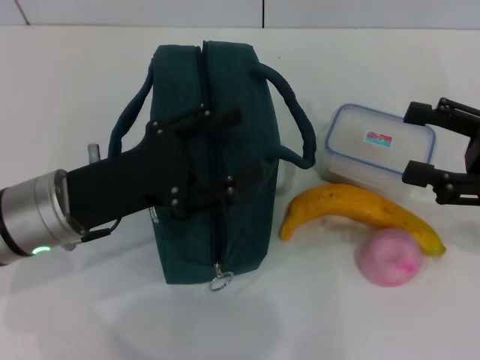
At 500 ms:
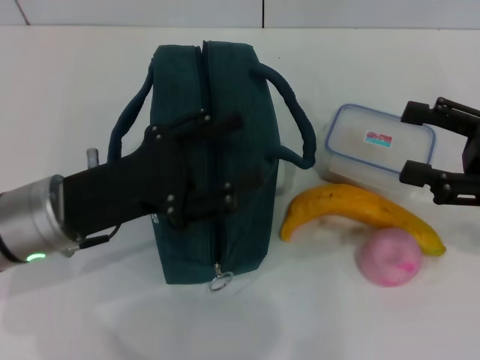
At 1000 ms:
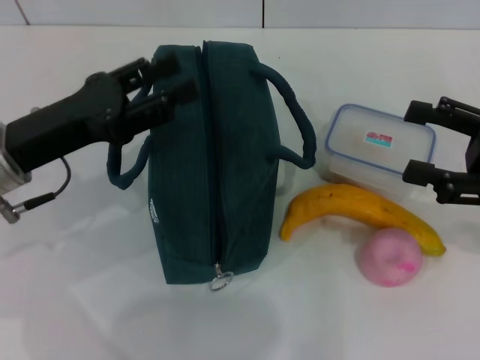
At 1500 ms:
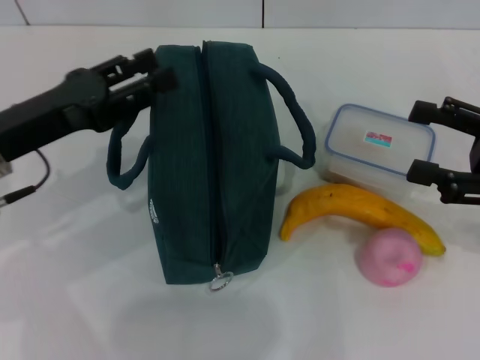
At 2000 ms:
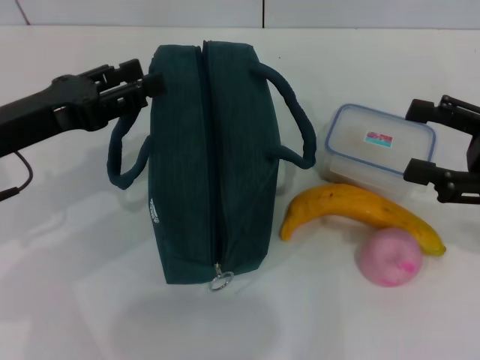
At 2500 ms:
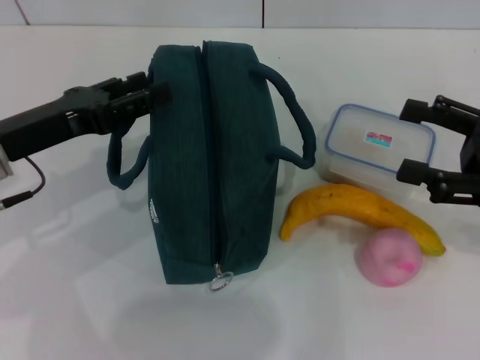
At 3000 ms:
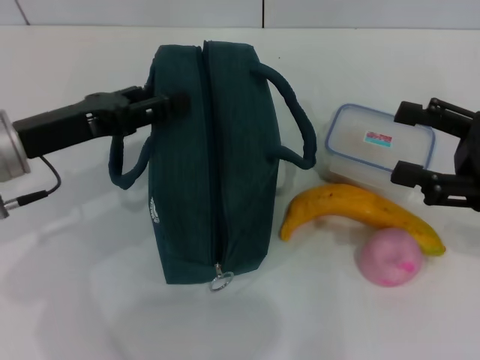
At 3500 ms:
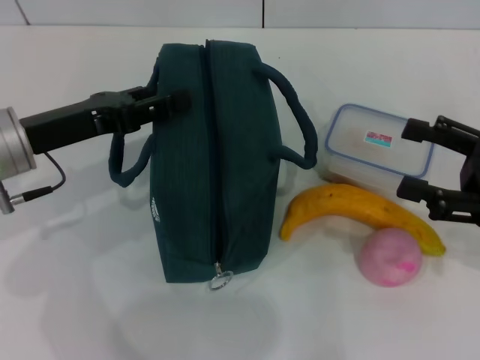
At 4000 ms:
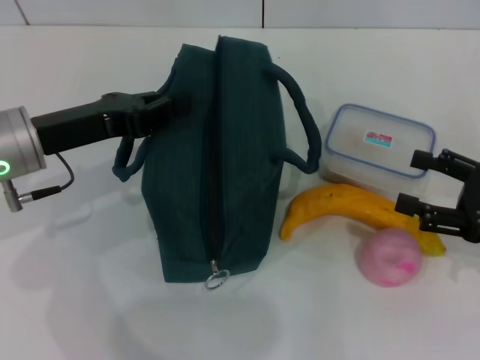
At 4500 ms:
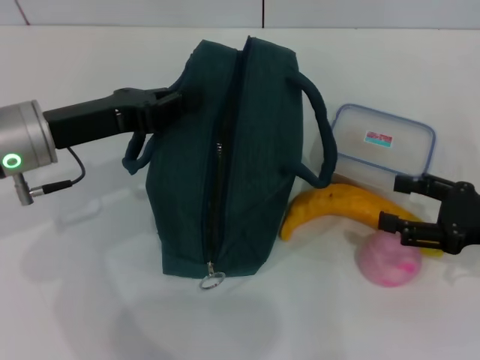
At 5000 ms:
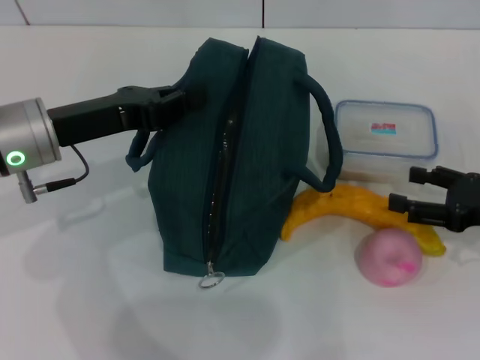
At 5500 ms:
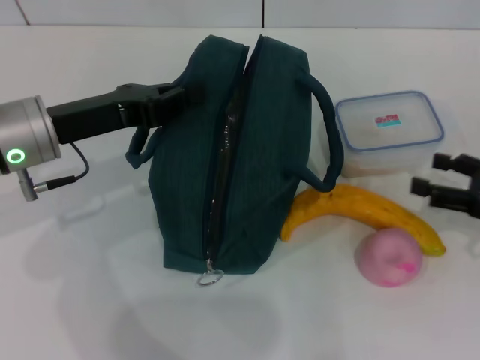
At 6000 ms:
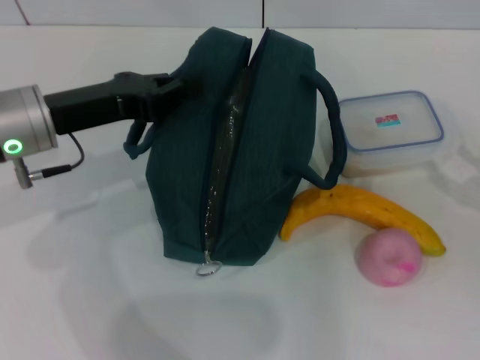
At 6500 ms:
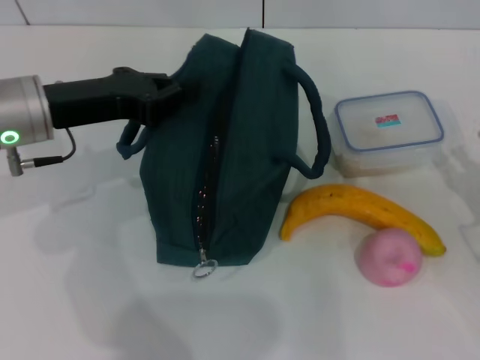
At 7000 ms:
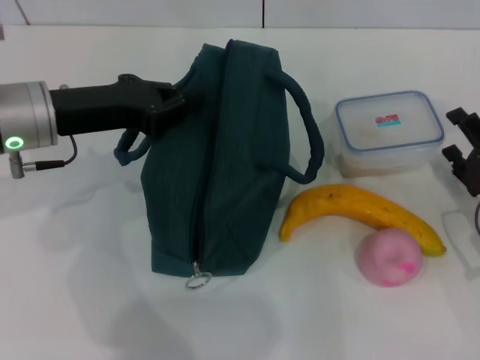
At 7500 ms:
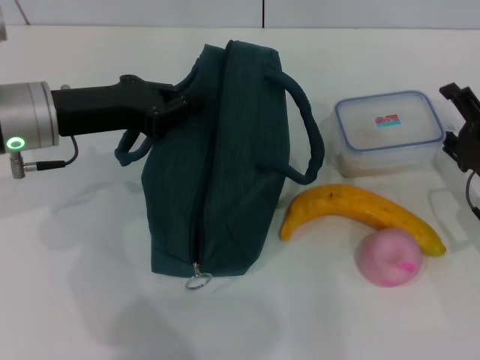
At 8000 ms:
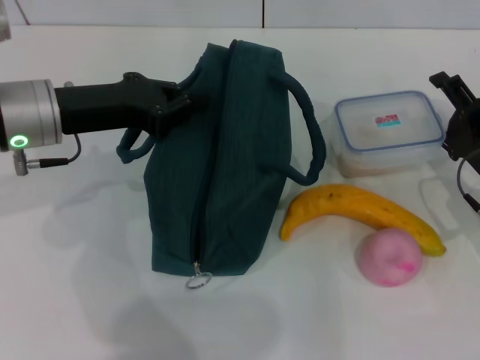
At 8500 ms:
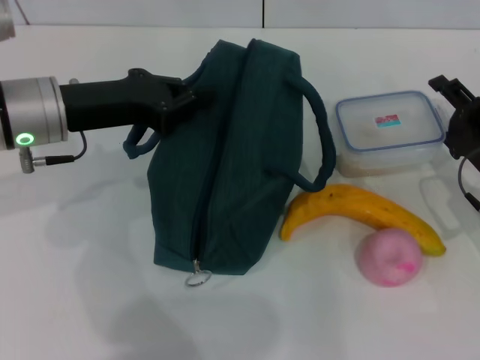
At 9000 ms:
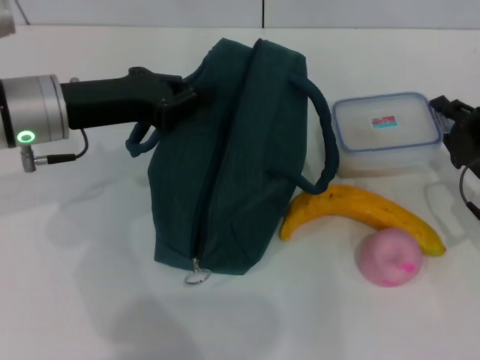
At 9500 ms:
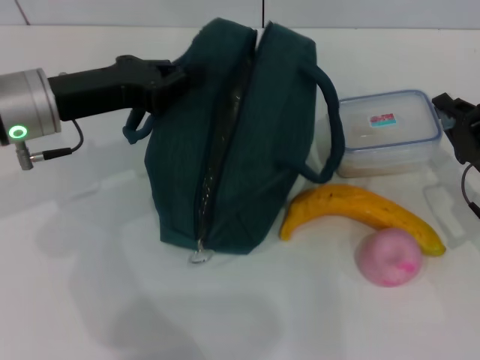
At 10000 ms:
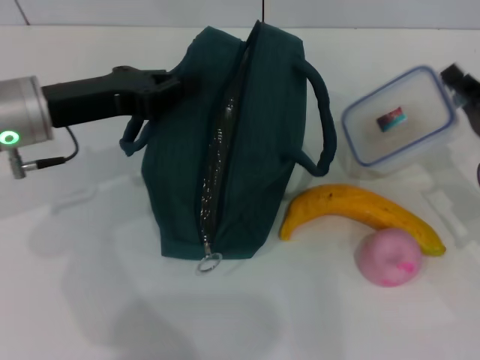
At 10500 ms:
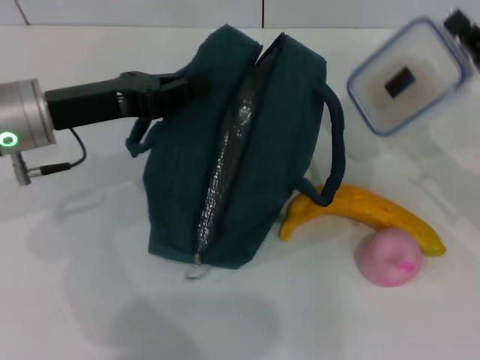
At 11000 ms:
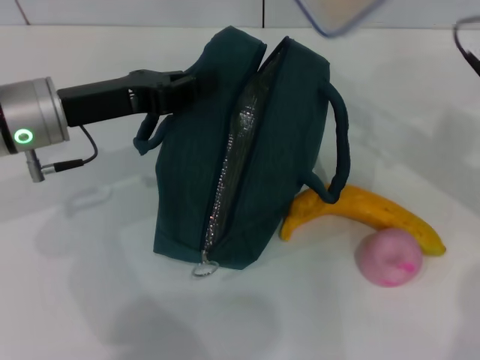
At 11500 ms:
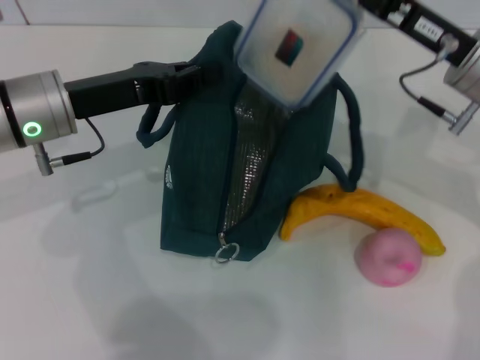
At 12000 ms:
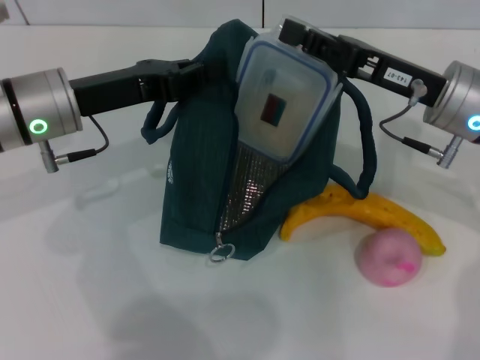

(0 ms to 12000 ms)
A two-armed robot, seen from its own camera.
Step, 0 ms - 4500 ms: Hold the lunch bag with your left hand.
Step, 5000 ms - 9500 ms: Pick up the lunch box with your right hand.
0 ms - 2000 ms: The left gripper is displaced to the left by about 5 cm.
2000 ms - 4000 ms: The left gripper closes. The right gripper is displaced downward by roughly 5 cm.
4000 ms - 6000 ms: The left gripper closes its fingers.
6000 ms - 8000 ms: The right gripper goes some 10 cm to the left and forward.
8000 ms - 10000 ms: The right gripper closes up.
10000 ms - 12000 ms: The right gripper moves to the left, upward and forward, roughly 15 cm.

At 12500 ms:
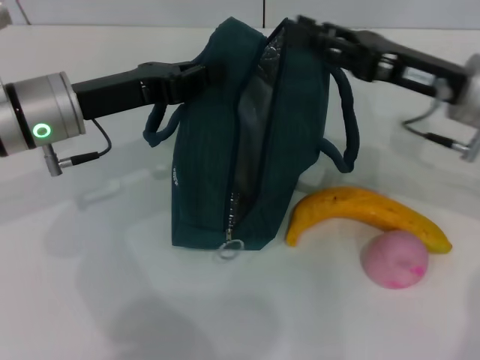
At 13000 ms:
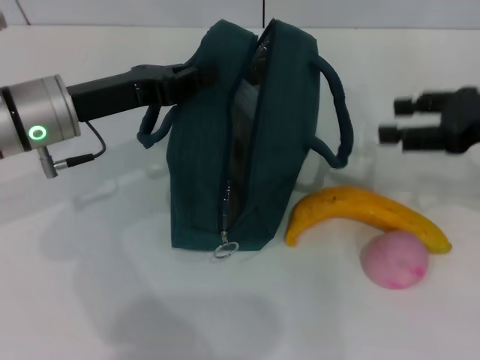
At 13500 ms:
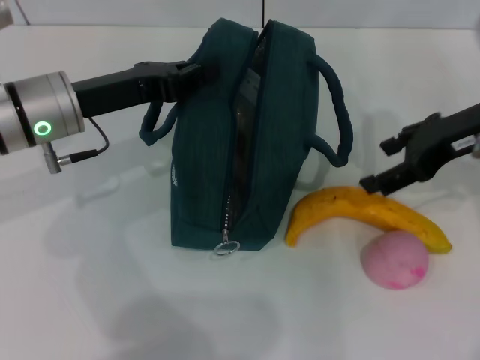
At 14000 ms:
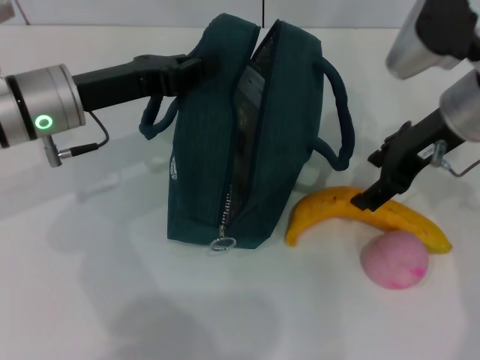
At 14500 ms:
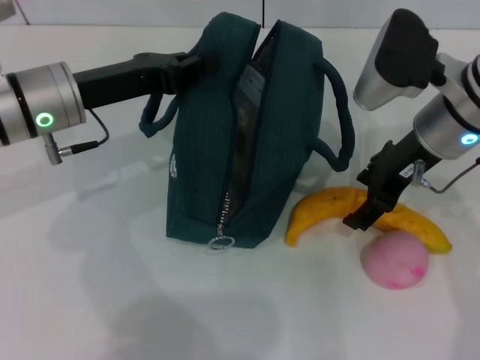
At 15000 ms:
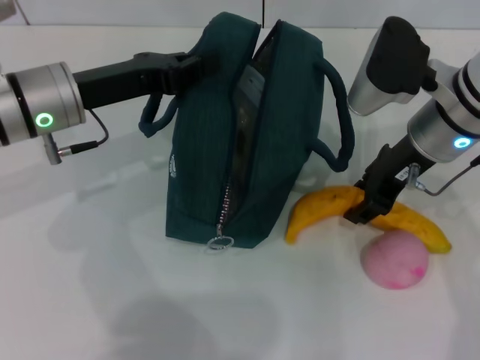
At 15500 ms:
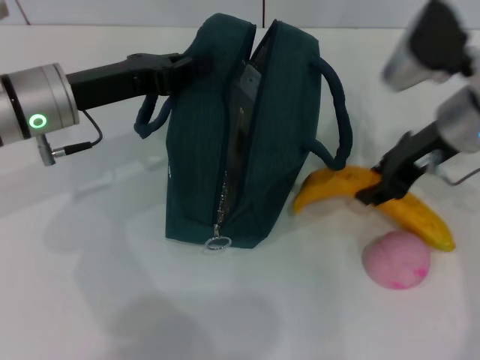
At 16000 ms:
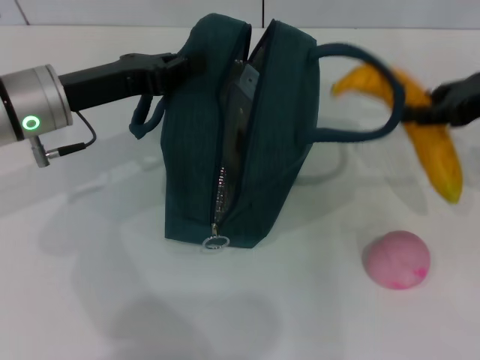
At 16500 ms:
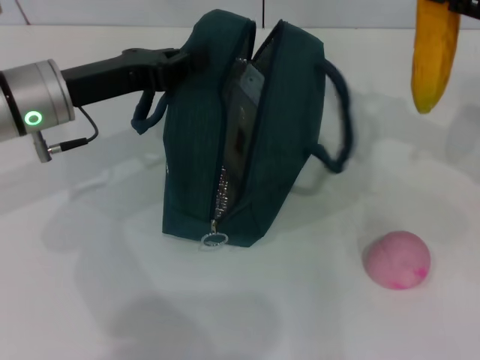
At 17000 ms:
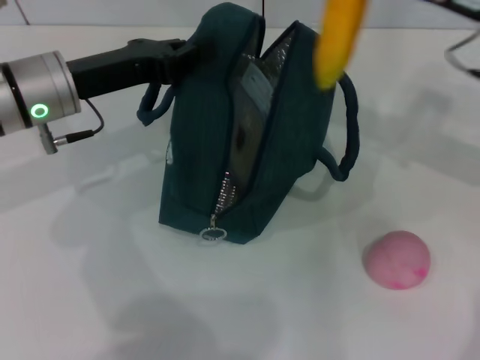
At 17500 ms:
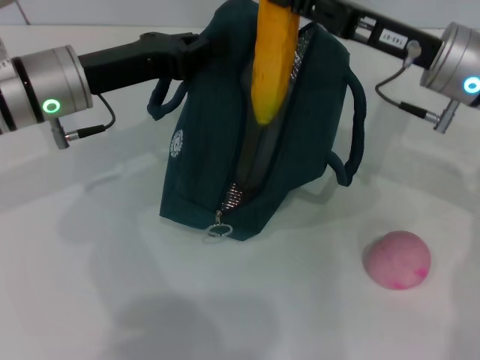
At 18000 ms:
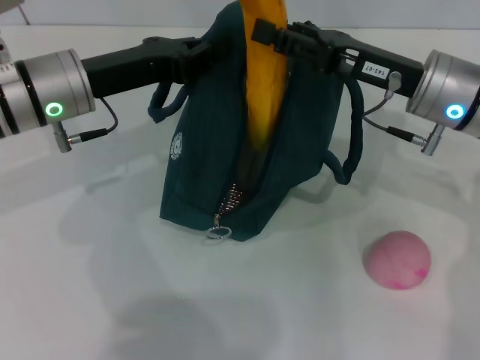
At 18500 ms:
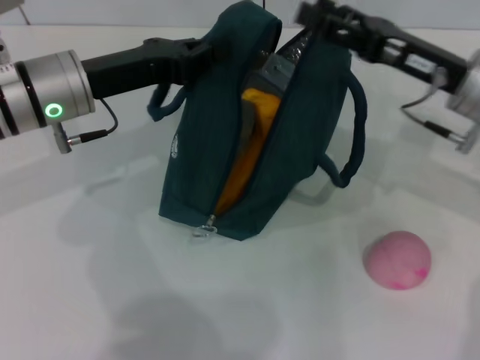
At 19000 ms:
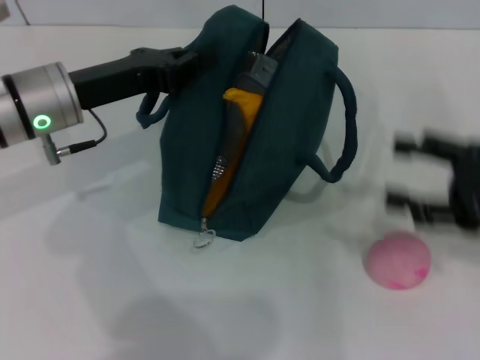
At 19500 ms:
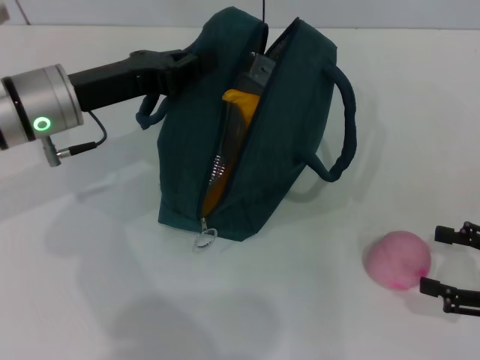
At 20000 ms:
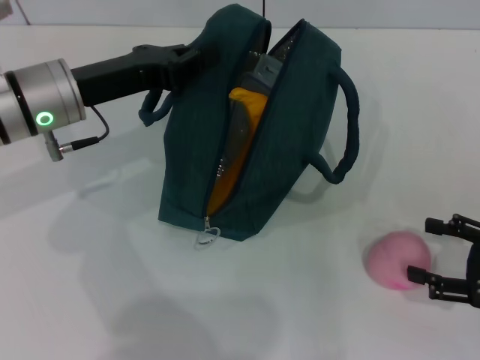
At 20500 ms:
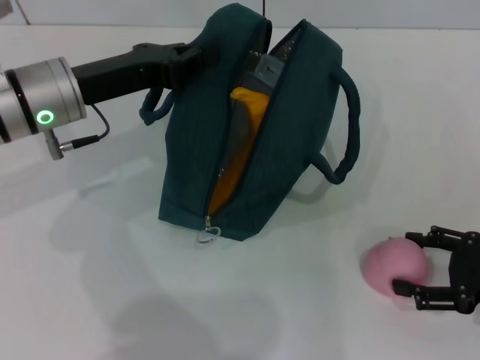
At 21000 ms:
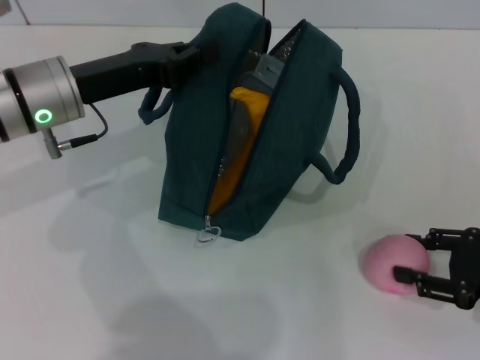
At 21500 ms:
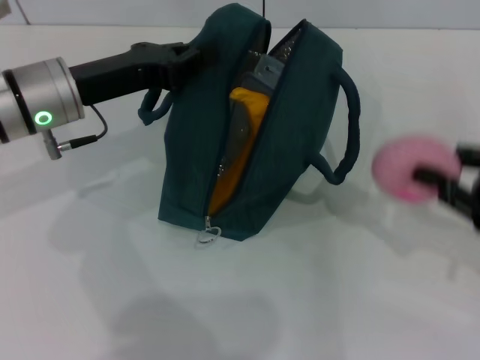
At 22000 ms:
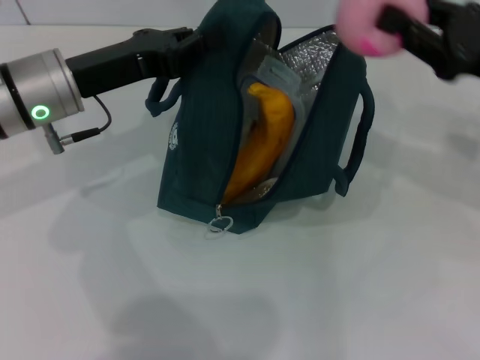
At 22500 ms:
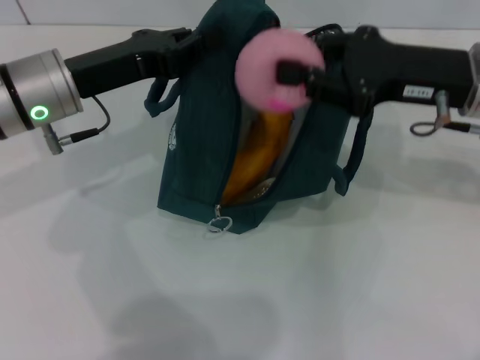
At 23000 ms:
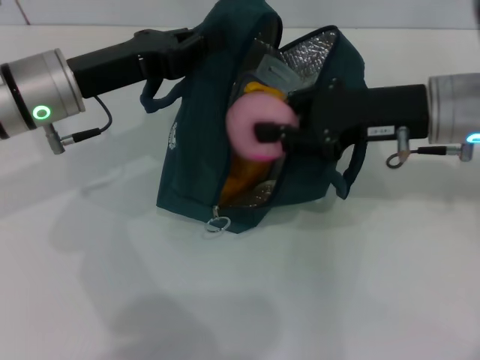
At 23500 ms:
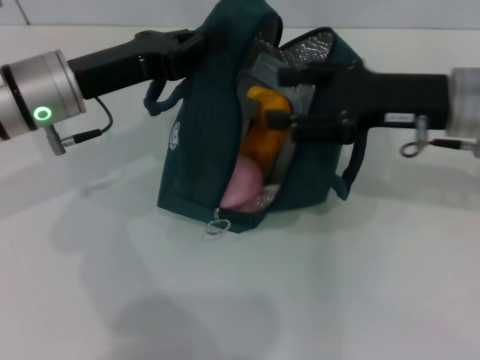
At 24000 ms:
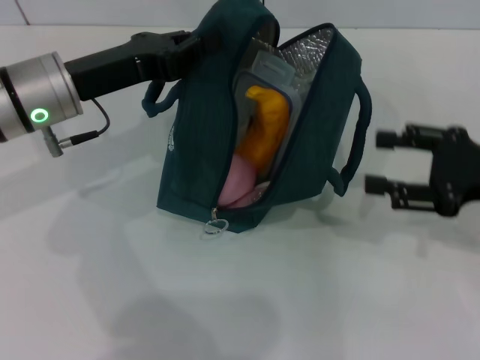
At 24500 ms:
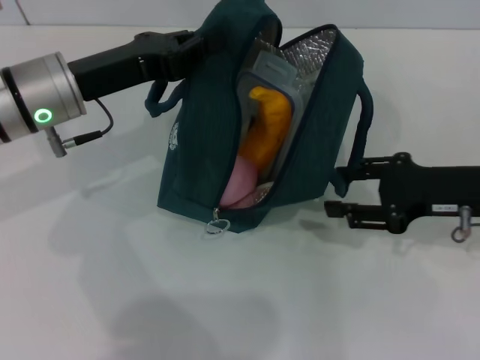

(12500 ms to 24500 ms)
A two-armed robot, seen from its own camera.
Step, 12500 ms - 14500 ms: Take the banana with your right hand.
Step, 15000 ms - 18000 ms: Put the banana into the lunch bag with your right hand.
Step, 18500 ms - 20500 ms: Grab the peach with your right hand.
12500 ms - 14500 ms: The right gripper opens up.
14500 ms - 16500 ms: The right gripper is displaced to the right by about 15 cm, and closes.
16500 ms - 18500 ms: The right gripper shifts roughly 10 cm to the left and downward, and opens up.
18500 ms - 20500 ms: The right gripper moves backward, to the right and downward, some 20 cm.
20500 ms - 22500 ms: The right gripper travels upward, to the left and forward by some 20 cm, and closes up.
22500 ms - 24500 ms: The right gripper is displaced downward by about 10 cm, and opens its fingers.

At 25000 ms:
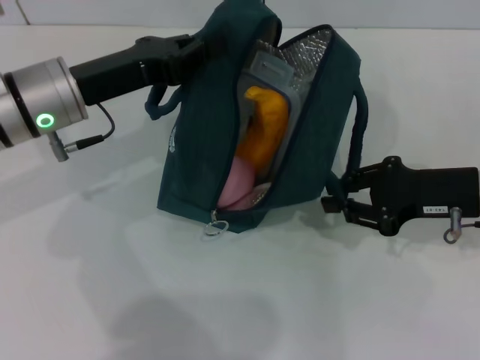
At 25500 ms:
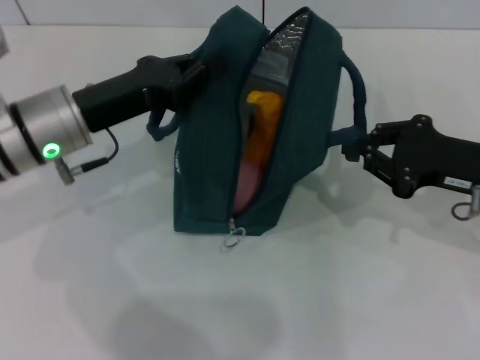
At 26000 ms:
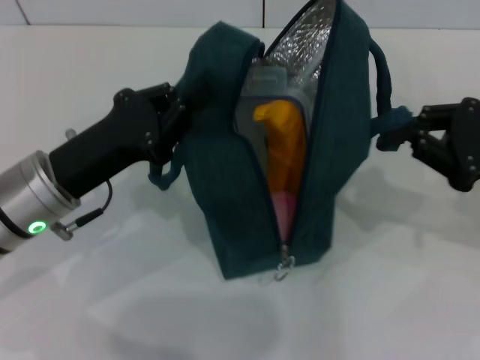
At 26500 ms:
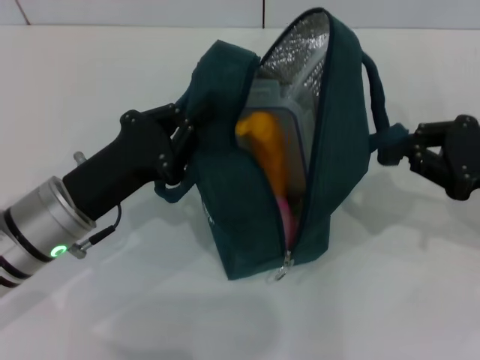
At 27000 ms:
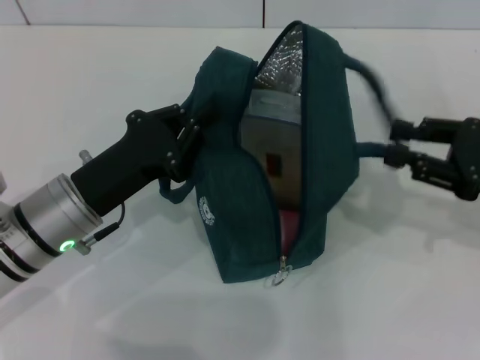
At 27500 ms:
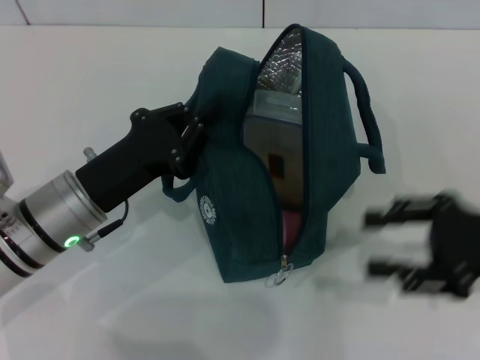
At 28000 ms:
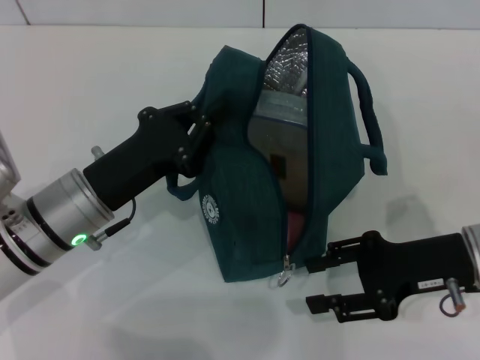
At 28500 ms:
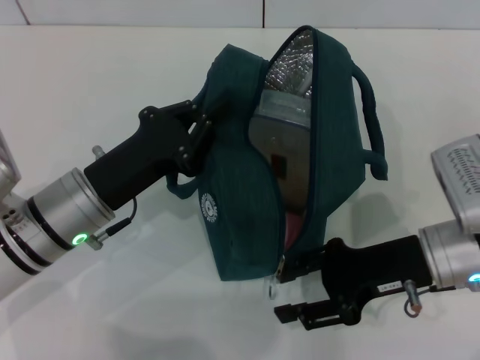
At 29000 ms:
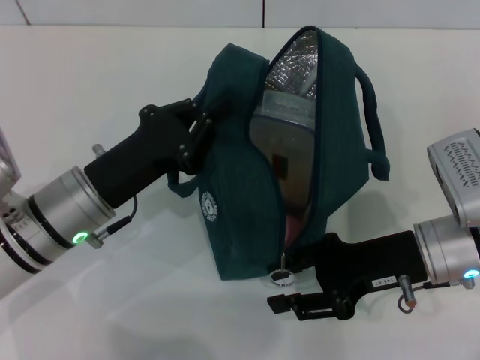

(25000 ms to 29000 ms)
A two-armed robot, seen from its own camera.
25000 ms - 27000 ms: The right gripper moves to the right, roughly 5 cm. The left gripper moves backward and downward, some 10 cm.
27000 ms - 29000 ms: The right gripper travels to the left and downward by roughly 15 cm.
